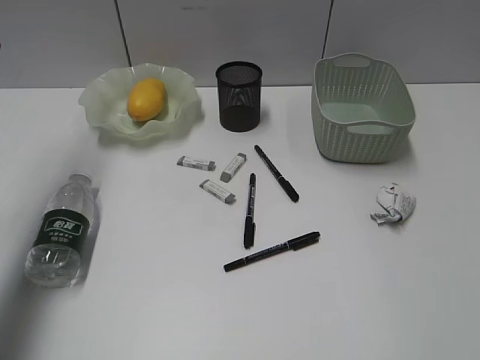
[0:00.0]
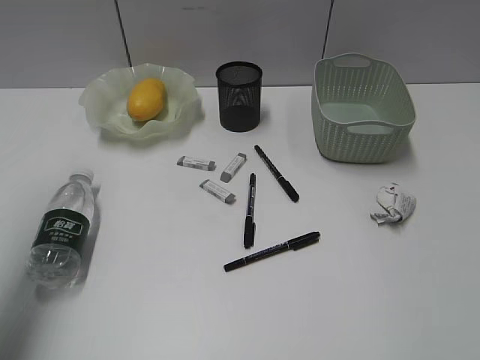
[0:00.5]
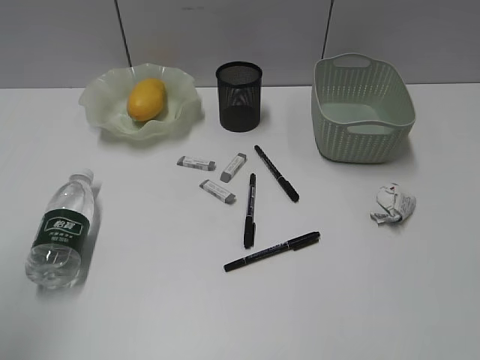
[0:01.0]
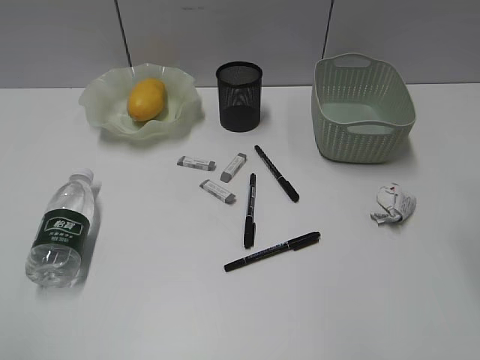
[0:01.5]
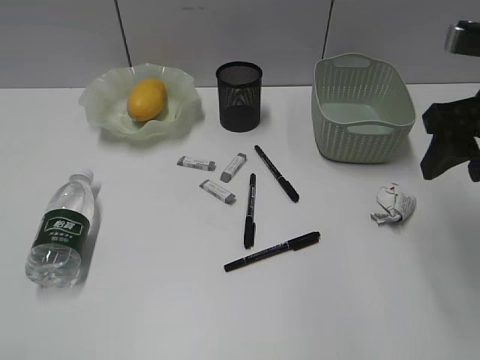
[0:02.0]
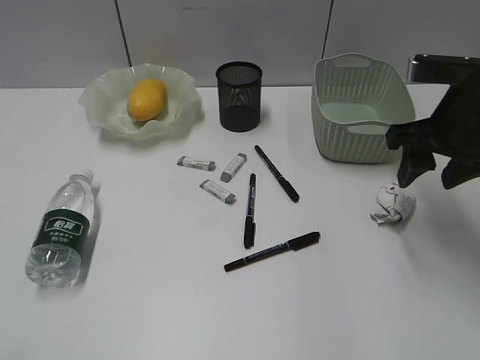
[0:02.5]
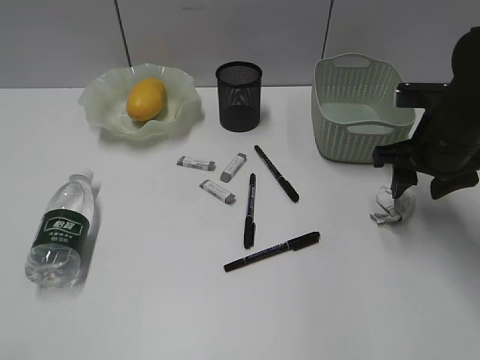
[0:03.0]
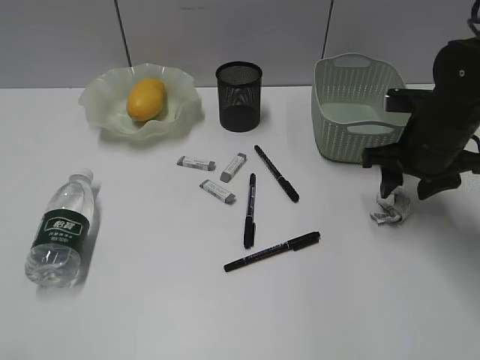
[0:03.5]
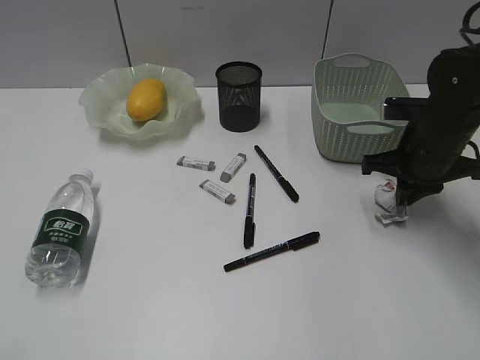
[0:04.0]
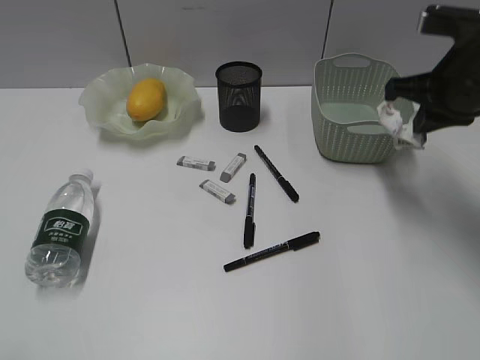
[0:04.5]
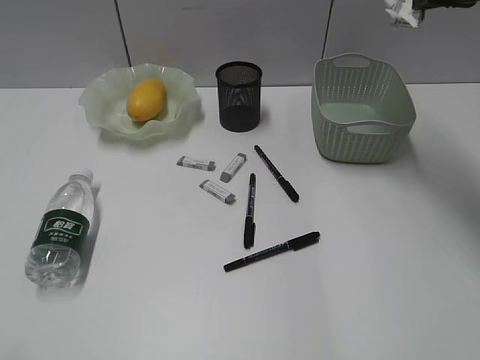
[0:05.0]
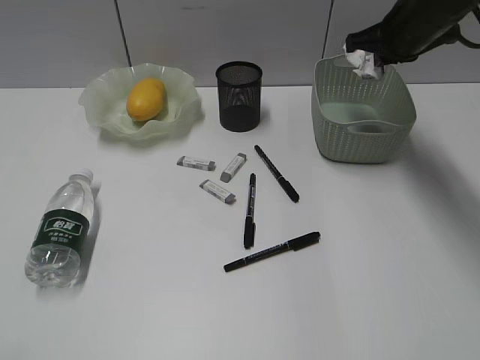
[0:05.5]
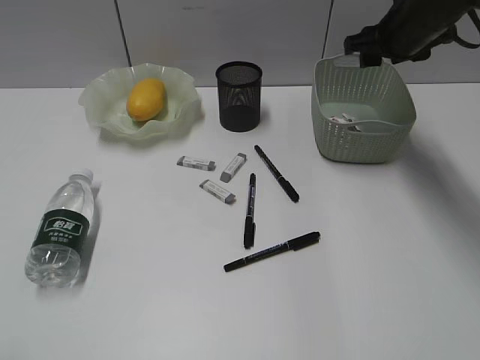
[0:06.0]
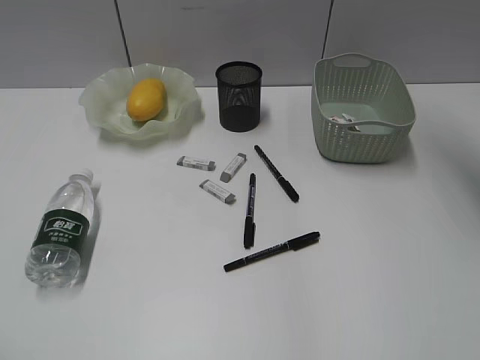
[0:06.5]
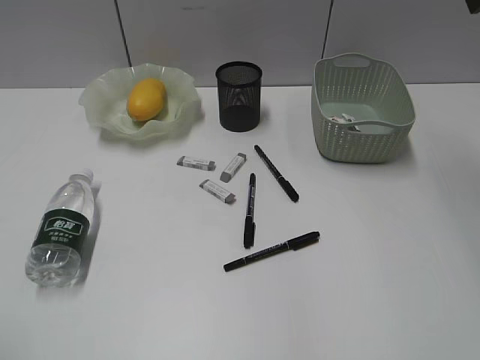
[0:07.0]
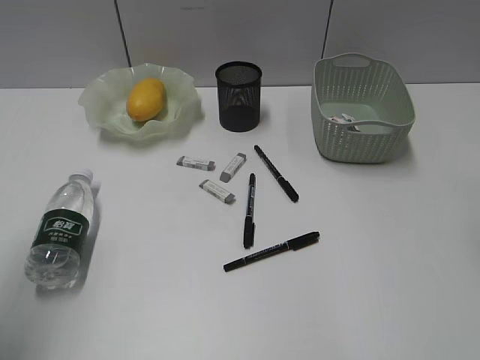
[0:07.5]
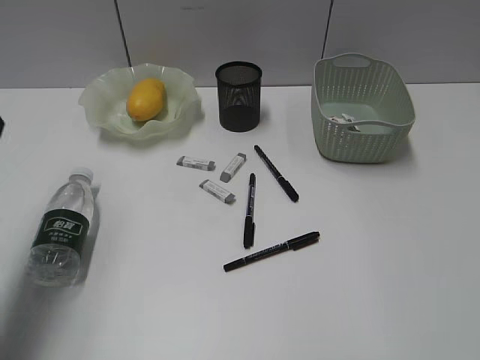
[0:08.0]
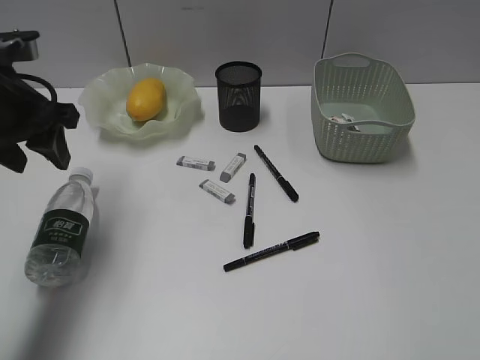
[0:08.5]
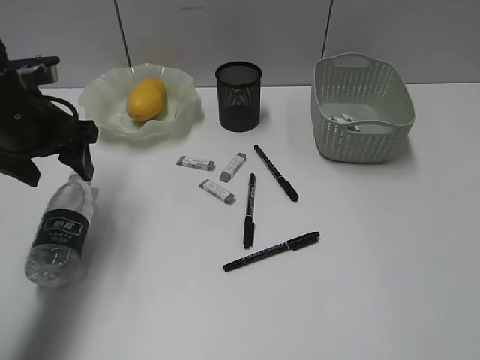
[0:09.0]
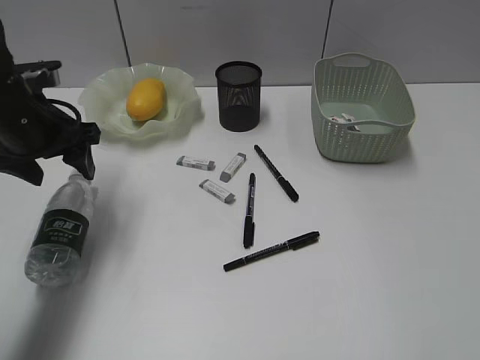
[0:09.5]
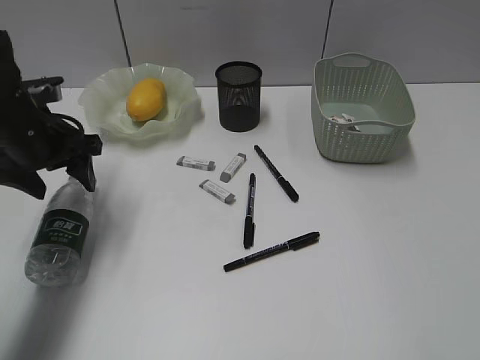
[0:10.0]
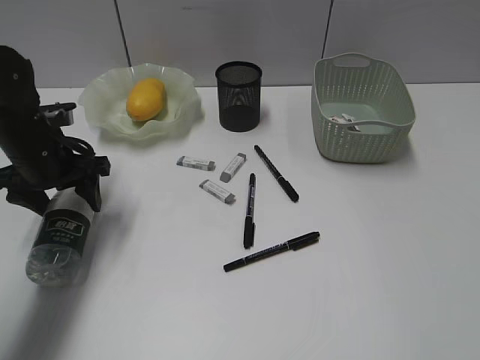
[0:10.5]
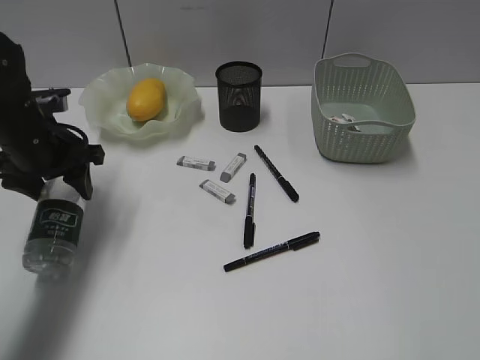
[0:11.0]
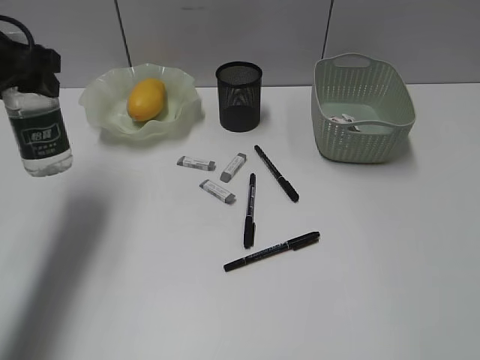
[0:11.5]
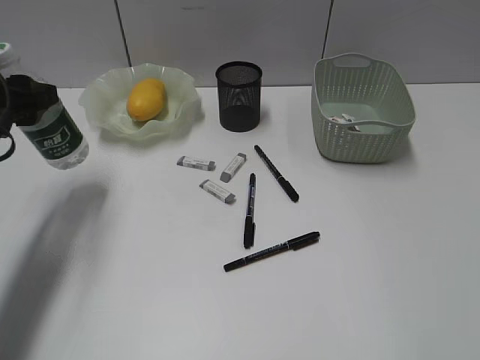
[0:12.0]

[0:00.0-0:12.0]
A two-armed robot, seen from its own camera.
Step, 0:00.0 to 0:04.0: Grasp the waste paper with right gripper.
Step, 0:04.5 to 0:06.0: Place the waste paper in the basket with right gripper.
Step, 0:06.5 to 0:10.5: Grasp the bottle with left gripper.
0:00.0 to 0:02.0: The left gripper heads backward, covering approximately 40 cm. The right gripper heads forward, covering some 30 cm.
0:02.0 to 0:04.0: The right gripper travels downward and forward by some 15 cm, and closes.
0:04.0 to 0:06.0: The right gripper moves forward and upward, about 15 cm, and opens up.
0:06.0 to 0:08.0: The right gripper travels backward by approximately 35 cm, while the left gripper moves forward, roughly 30 cm.
0:08.0 to 0:10.0: The left gripper shifts about 15 cm downward and forward.
0:10.0 to 0:12.0: The left gripper travels upward and back again, approximately 10 cm each way.

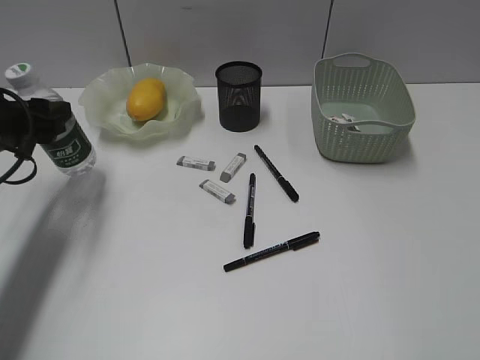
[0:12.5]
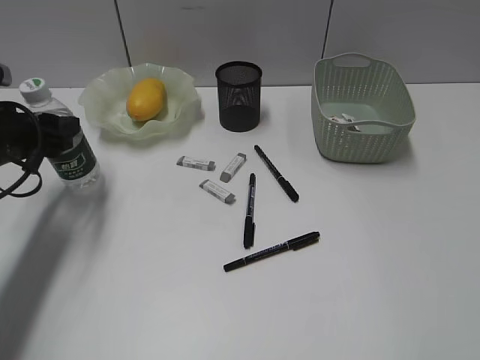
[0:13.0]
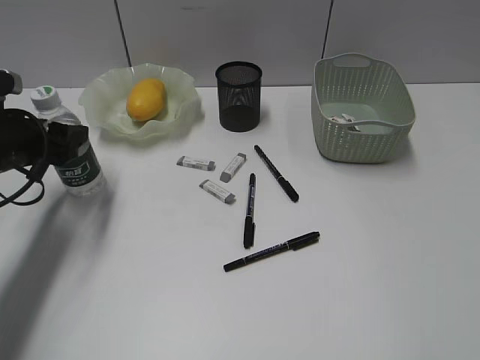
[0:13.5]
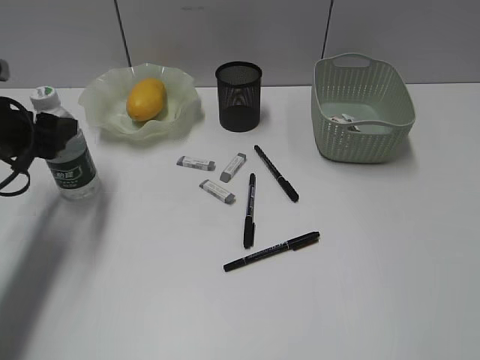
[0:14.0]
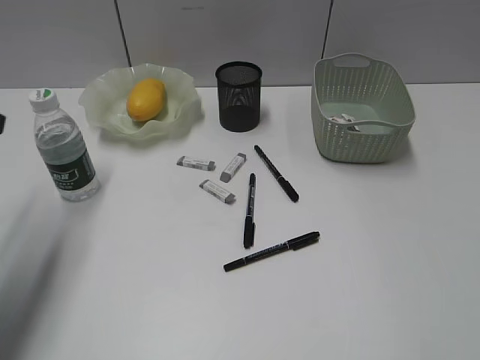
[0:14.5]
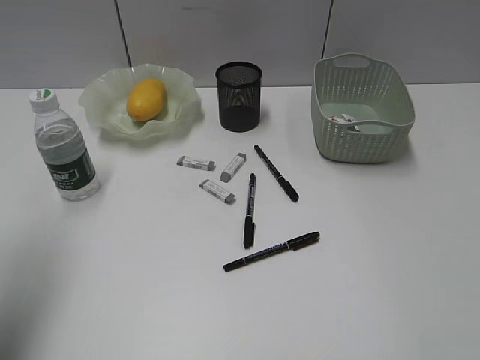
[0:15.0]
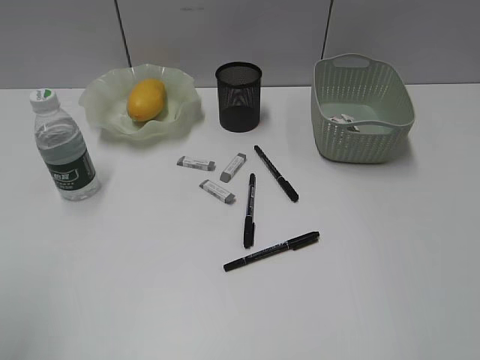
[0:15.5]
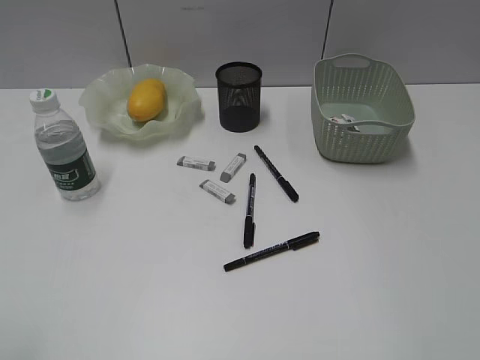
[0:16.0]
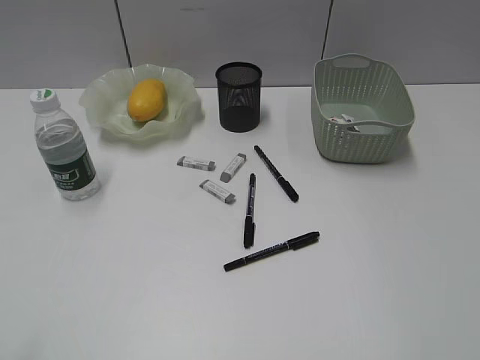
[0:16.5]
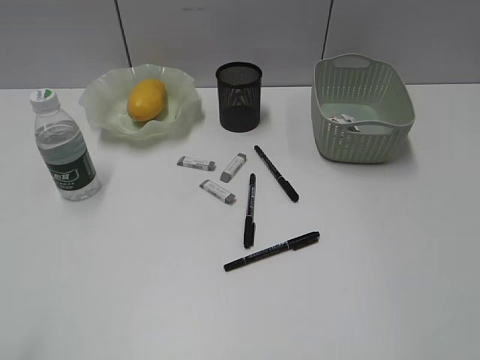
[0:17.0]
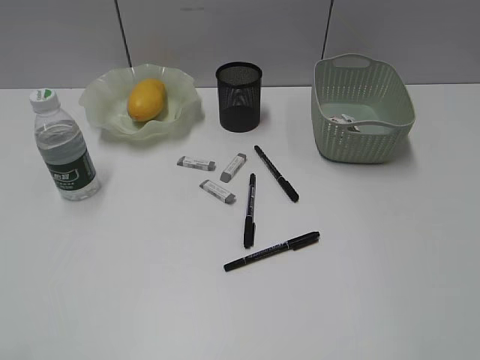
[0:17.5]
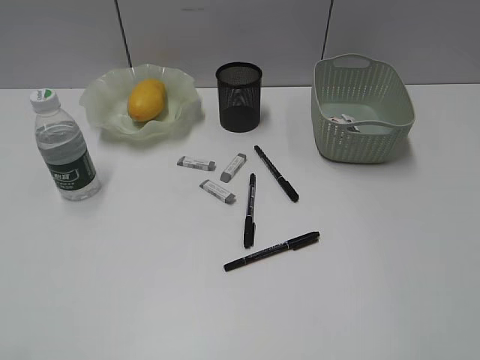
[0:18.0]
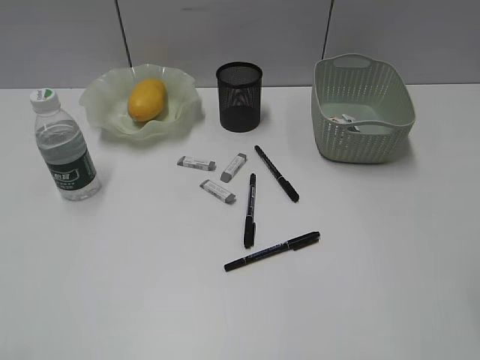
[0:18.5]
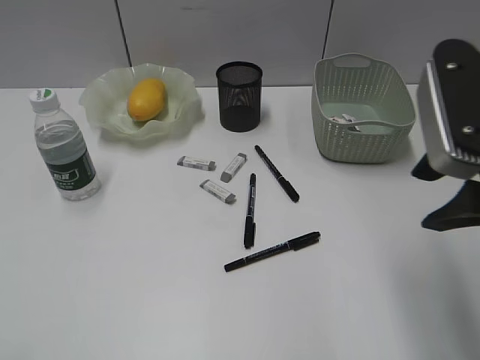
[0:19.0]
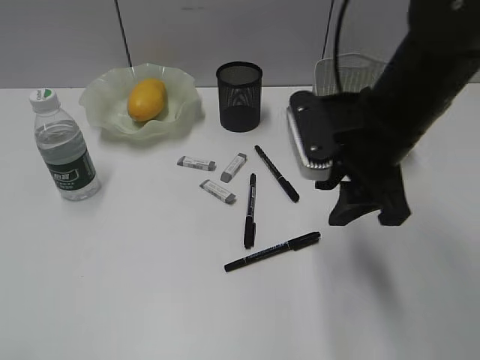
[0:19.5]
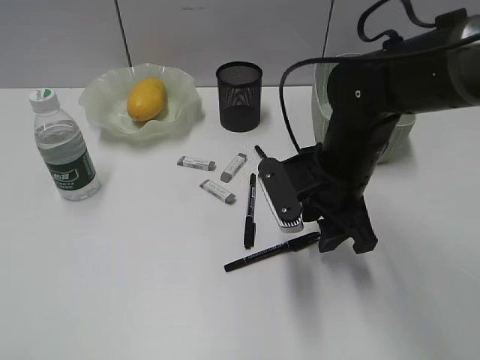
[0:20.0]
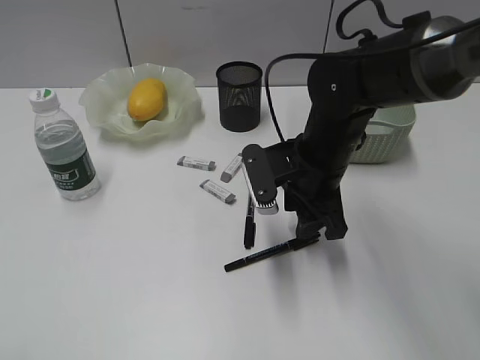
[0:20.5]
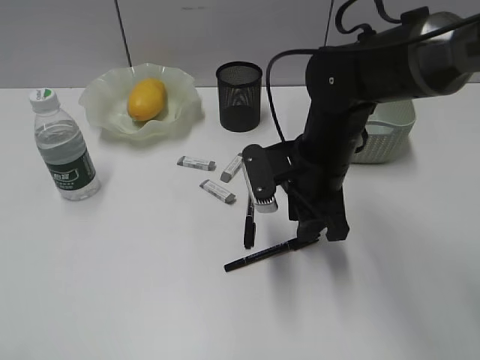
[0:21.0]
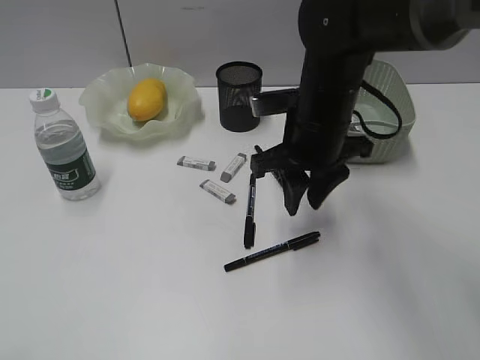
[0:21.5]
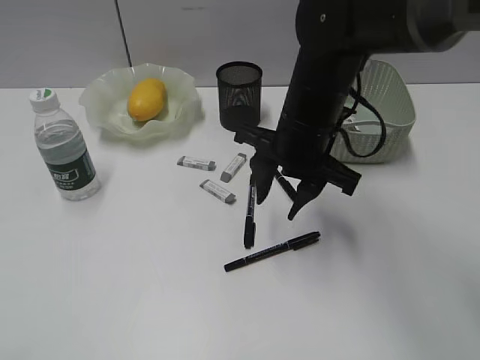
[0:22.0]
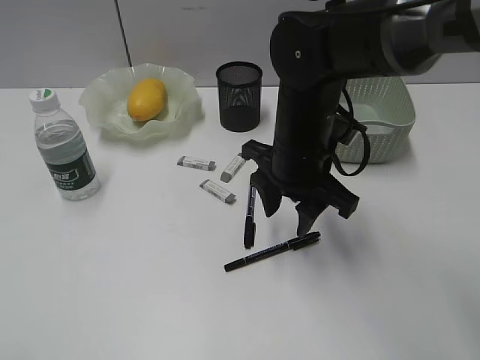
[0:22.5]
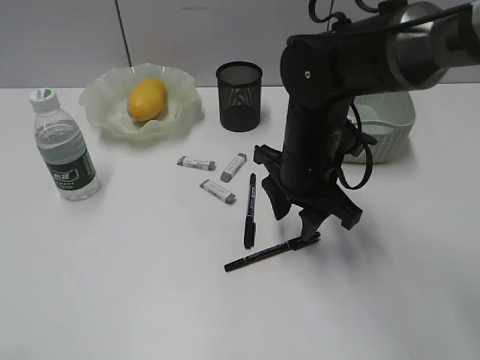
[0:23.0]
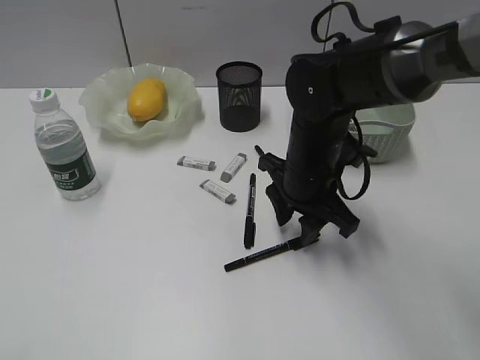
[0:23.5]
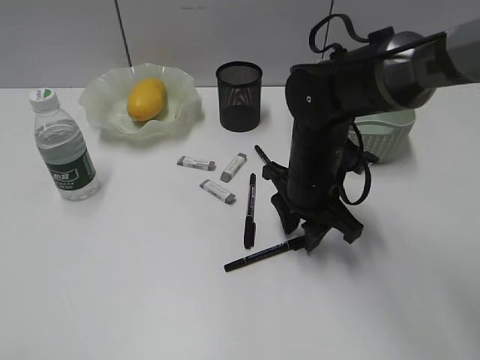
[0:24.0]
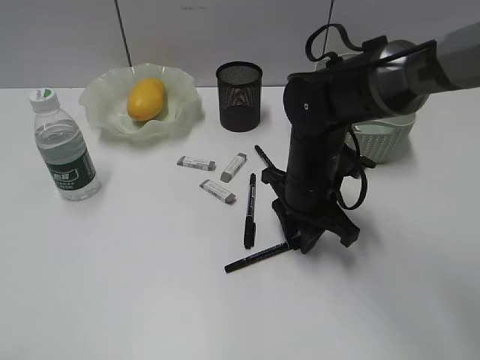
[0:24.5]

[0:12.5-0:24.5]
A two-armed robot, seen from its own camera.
0:12.5 to 0:14.5: The left gripper is displaced upward and backward by some 10 cm.
0:14.5 to 0:16.5: The left gripper shifts some 25 cm backward.
0:18.5 to 0:20.5: The right gripper travels downward, forward and to the left by some 35 cm.
0:22.5 to 0:24.5: The right gripper heads downward, covering approximately 5 cm, and closes up.

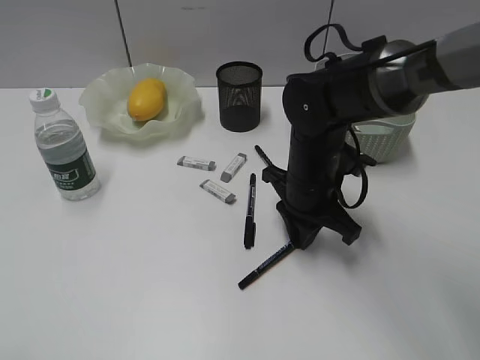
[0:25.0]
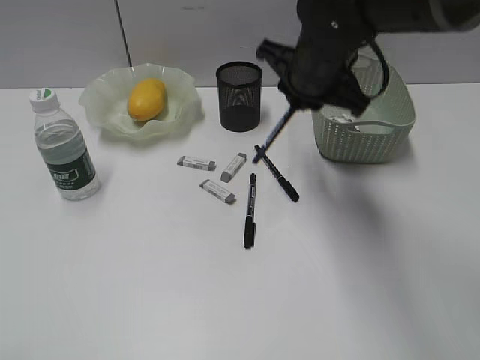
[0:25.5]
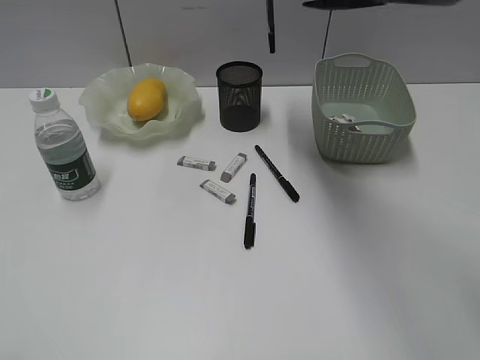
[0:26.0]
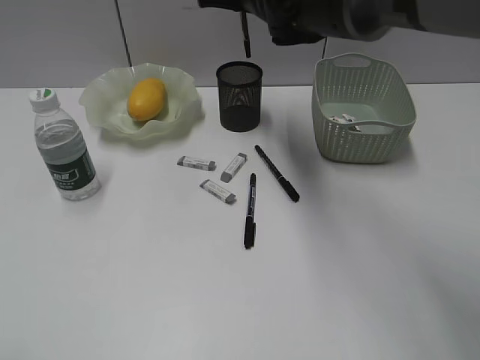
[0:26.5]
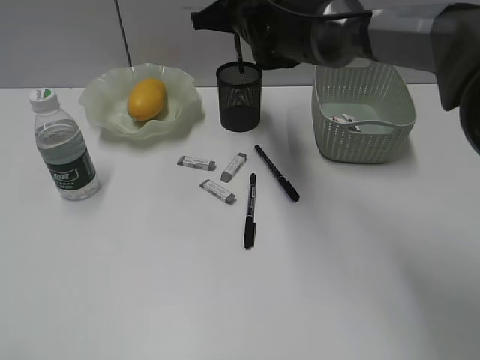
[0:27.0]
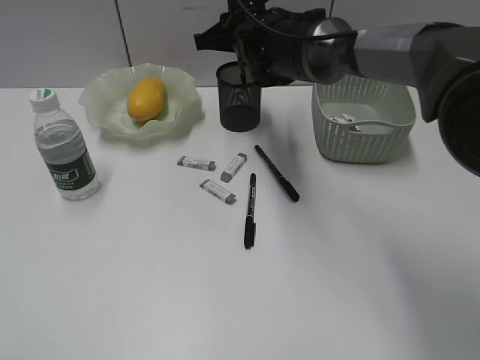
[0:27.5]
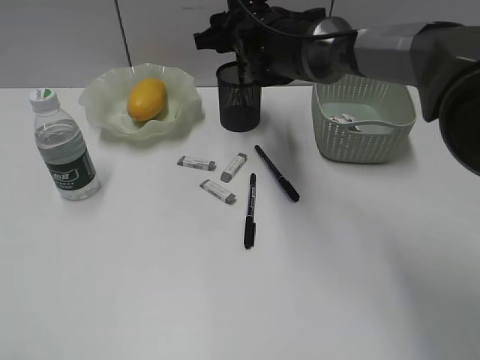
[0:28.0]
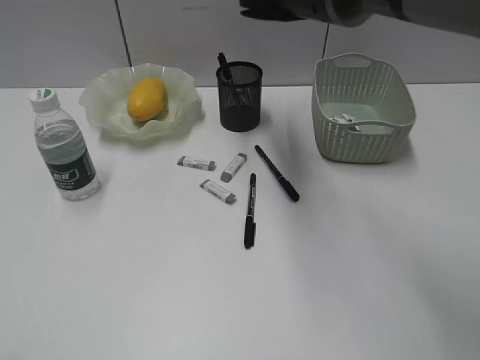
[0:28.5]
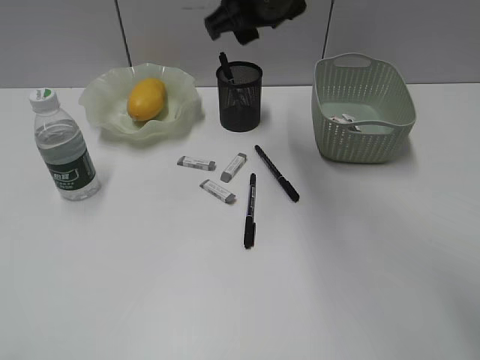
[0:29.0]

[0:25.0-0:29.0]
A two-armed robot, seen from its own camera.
Step, 0:25.0 to 0:28.0: Place the black pen in pen holder with right gripper.
0:25.0 to 0:27.0: The right gripper travels forward, upward and to the left by approximately 20 cm.
0:27.0 to 0:29.0: The right gripper moves upward and backward, about 10 cm, and opens its fingers.
